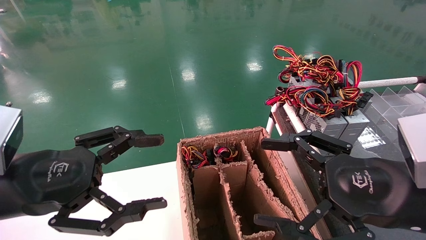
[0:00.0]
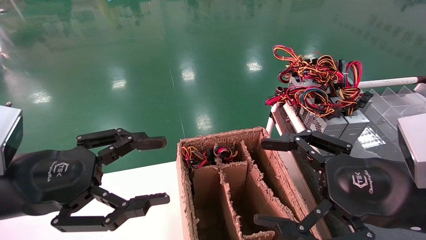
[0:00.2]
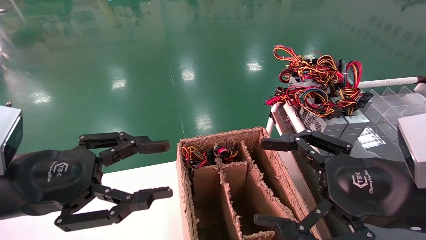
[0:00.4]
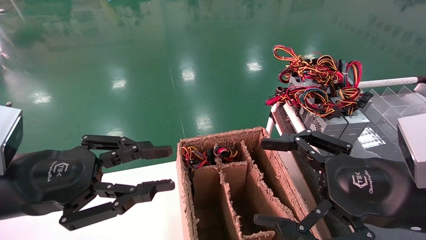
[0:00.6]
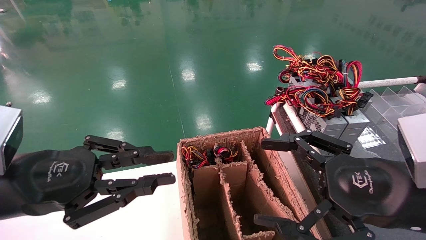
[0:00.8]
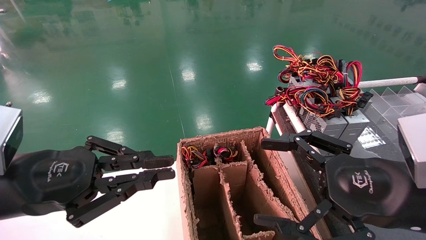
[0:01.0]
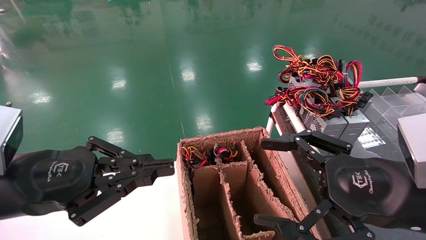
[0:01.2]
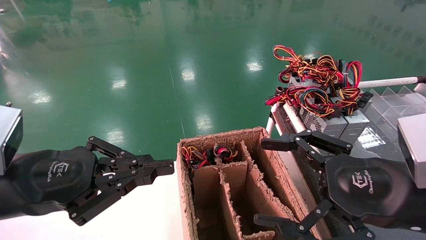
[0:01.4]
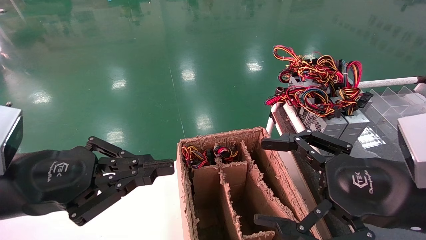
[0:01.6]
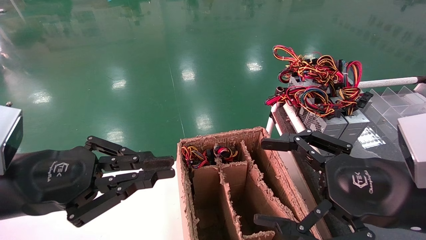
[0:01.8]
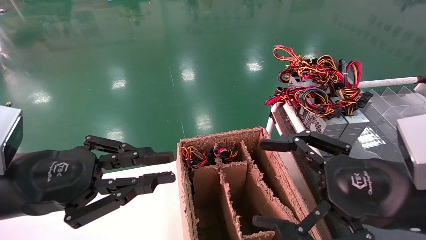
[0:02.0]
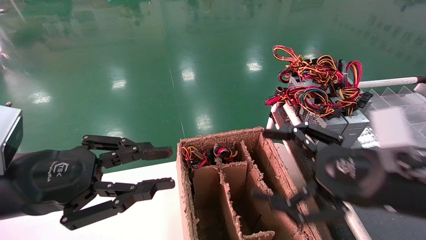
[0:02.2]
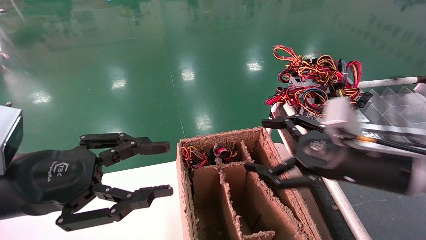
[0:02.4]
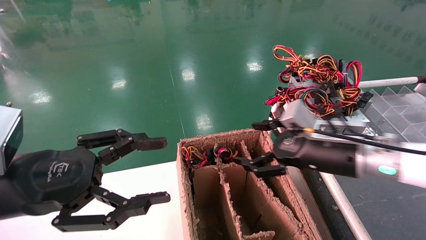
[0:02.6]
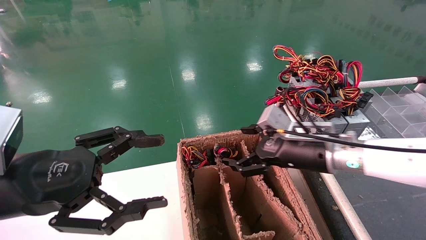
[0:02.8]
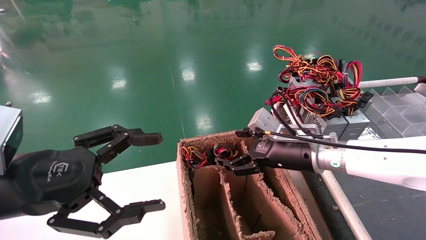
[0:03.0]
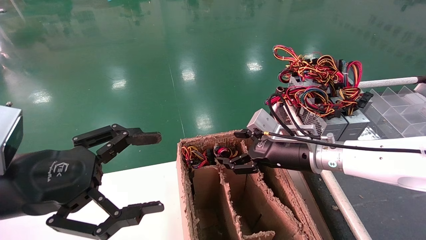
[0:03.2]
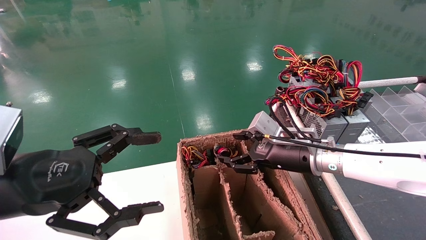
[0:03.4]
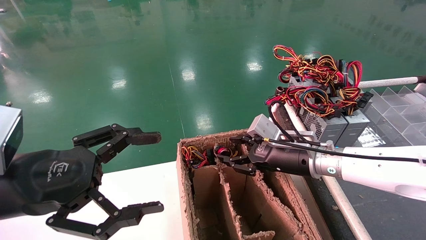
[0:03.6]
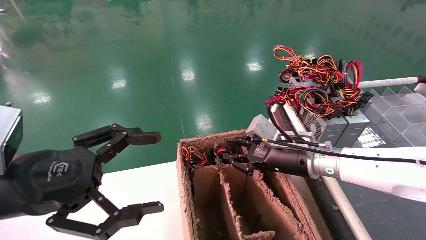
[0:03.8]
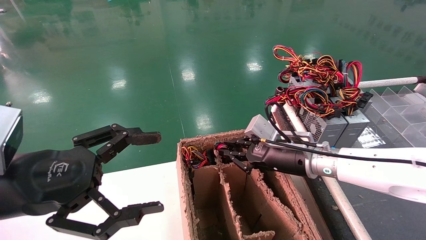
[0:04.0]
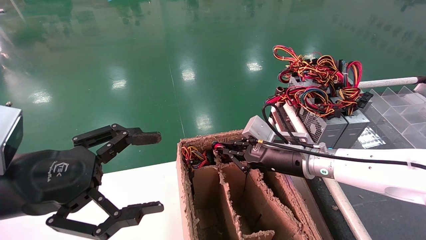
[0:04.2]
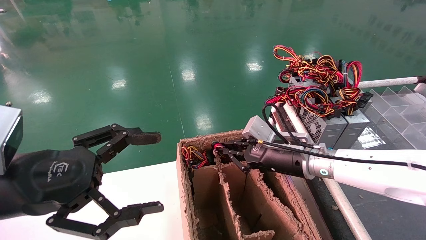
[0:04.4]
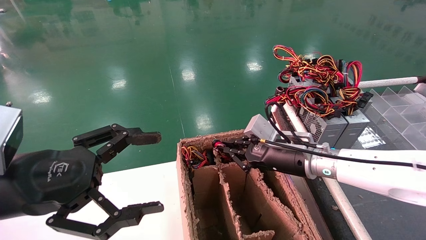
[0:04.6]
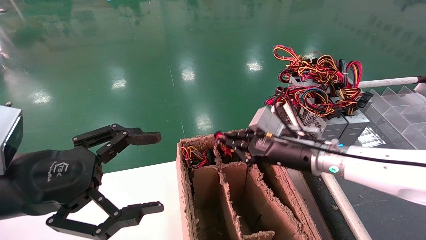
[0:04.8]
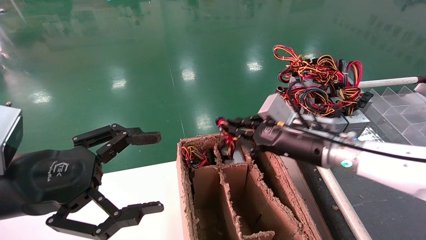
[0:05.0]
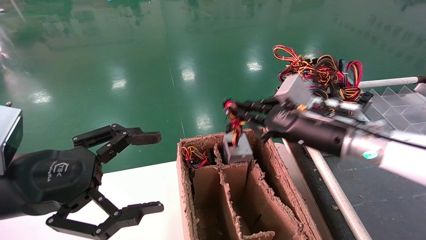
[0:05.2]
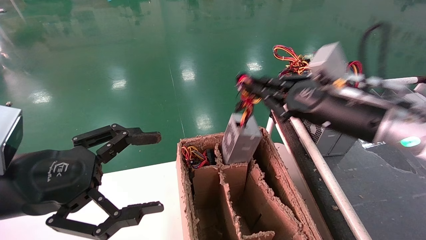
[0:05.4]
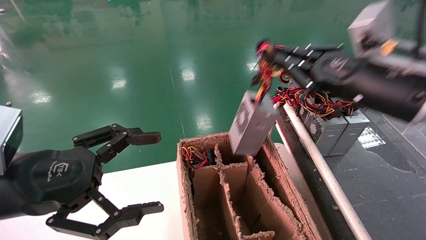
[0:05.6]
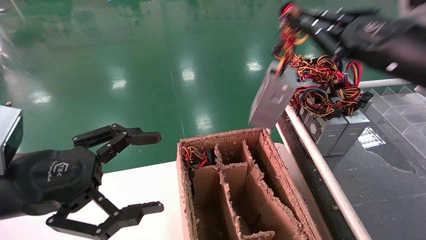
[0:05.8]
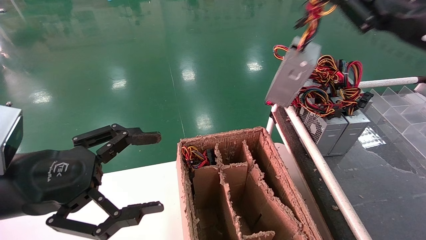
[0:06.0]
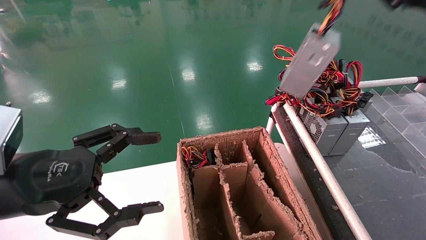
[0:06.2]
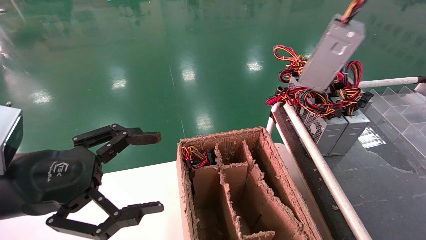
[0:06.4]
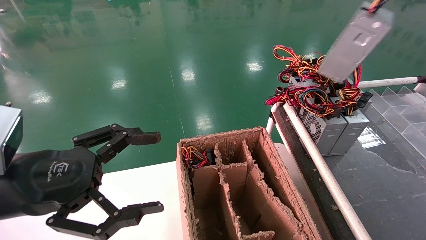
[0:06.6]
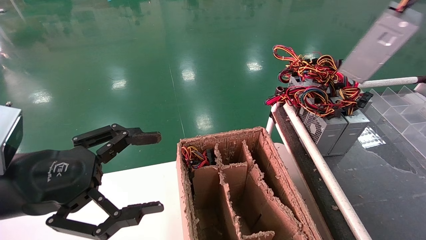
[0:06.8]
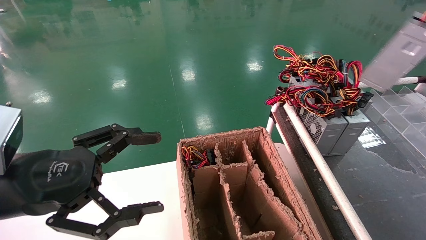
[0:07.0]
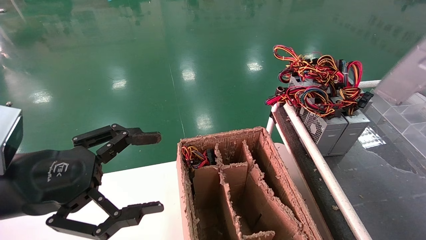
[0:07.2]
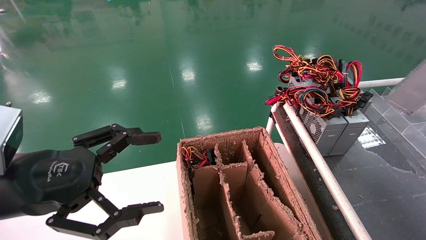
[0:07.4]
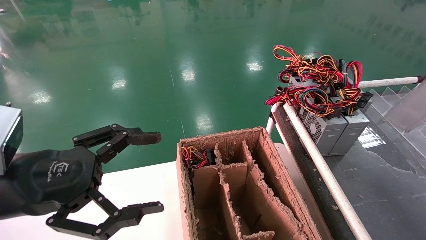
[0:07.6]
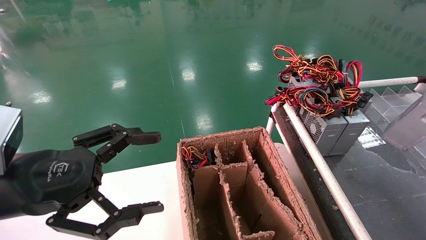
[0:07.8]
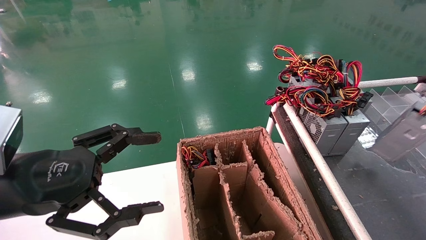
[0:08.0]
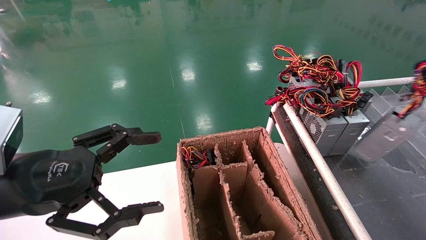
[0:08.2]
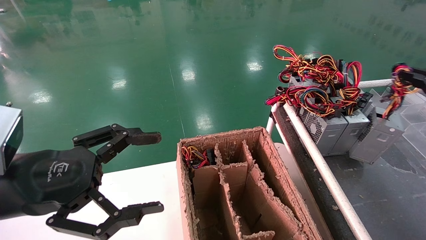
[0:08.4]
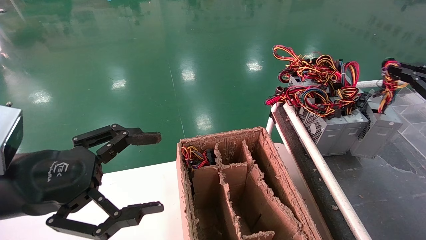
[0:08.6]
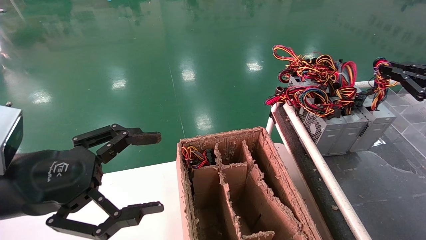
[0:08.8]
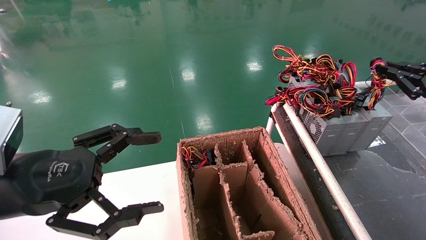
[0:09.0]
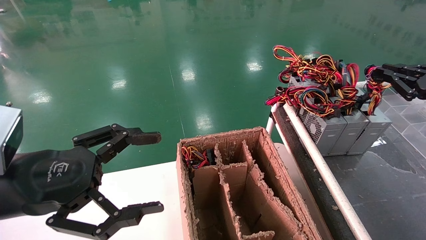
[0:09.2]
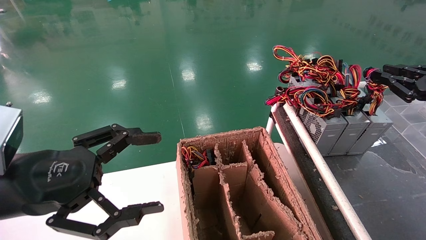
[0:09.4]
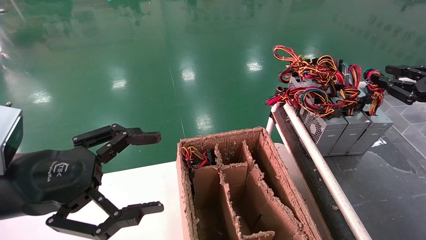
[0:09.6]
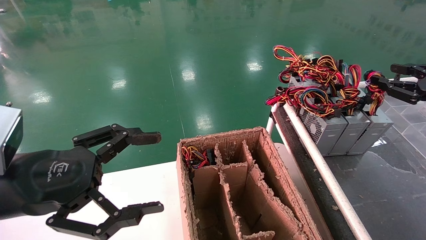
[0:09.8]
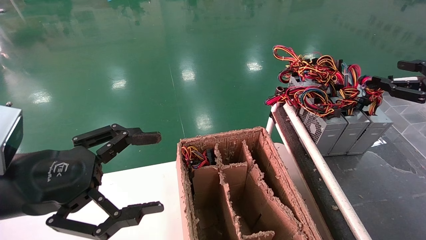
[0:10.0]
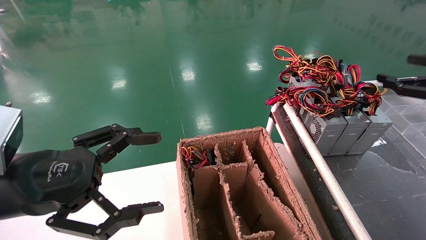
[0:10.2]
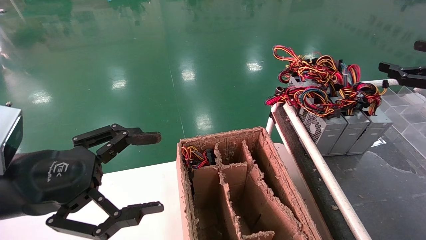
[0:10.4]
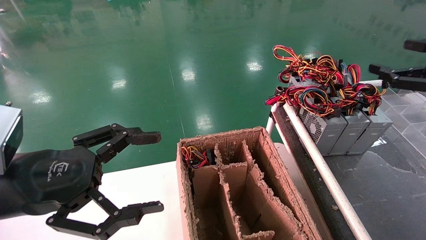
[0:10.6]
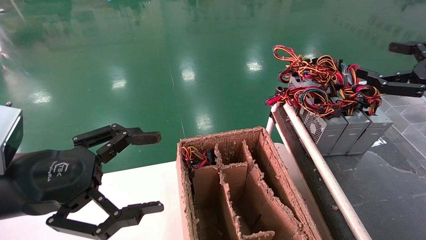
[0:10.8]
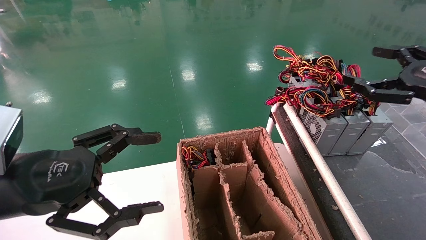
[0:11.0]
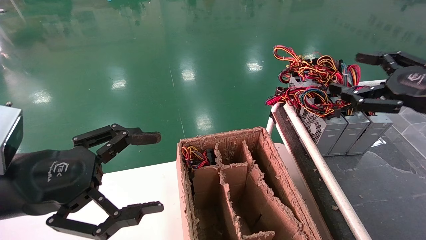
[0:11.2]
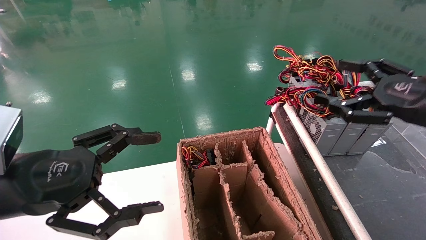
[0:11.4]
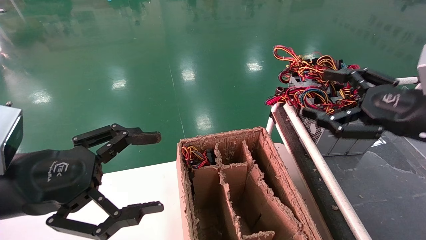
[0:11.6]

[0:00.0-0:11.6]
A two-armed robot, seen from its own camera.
Step, 0:00.6 to 0:04.2: Grab and lift the power supply from the large box.
Step, 0:04.4 to 0:09.6: Place the power supply on the operating table.
0:00.0 to 0:01.4: The left gripper closes up.
0:01.4 to 0:02.8: The left gripper opens up, while the right gripper travels forward by some 15 cm.
0:02.8 to 0:04.4: The right gripper moves roughly 5 cm, and closes up.
0:04.4 to 0:05.8: The right gripper goes roughly 25 cm upward, to the right and backward.
0:05.8 to 0:07.2: The right gripper travels to the right by about 20 cm.
0:07.2 to 0:08.8: The right gripper travels downward and forward by some 15 cm.
0:08.8 to 0:10.2: The right gripper opens its fingers.
0:10.2 to 0:11.6: The right gripper heads to the left, covering approximately 15 cm.

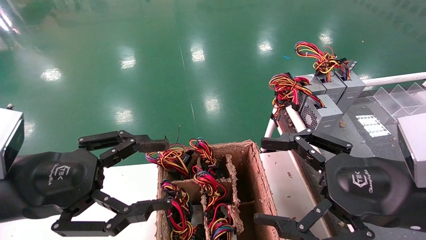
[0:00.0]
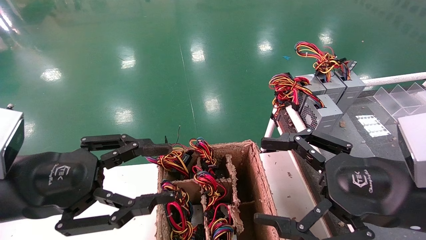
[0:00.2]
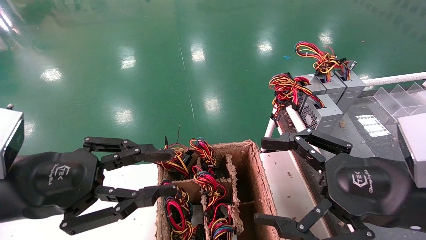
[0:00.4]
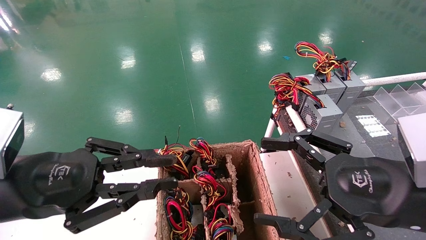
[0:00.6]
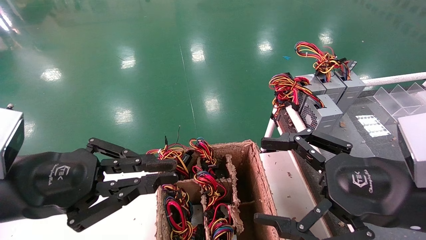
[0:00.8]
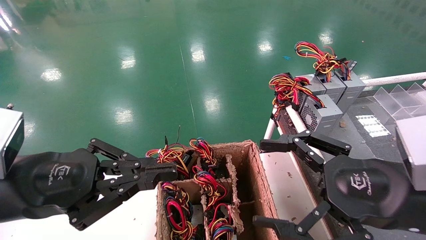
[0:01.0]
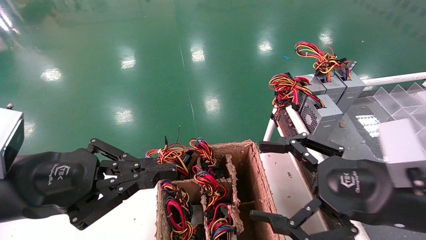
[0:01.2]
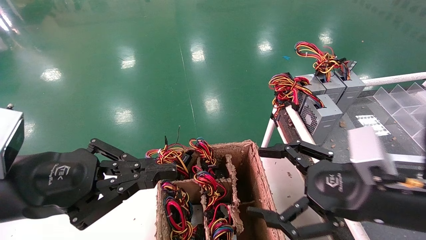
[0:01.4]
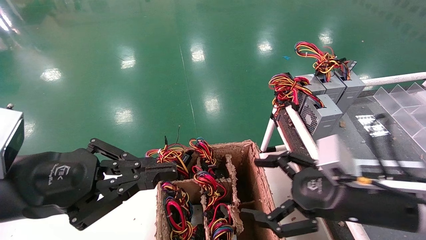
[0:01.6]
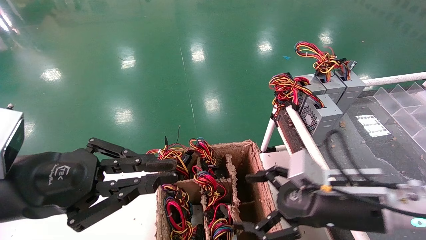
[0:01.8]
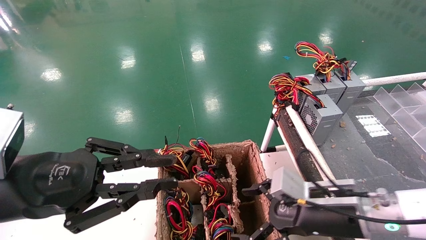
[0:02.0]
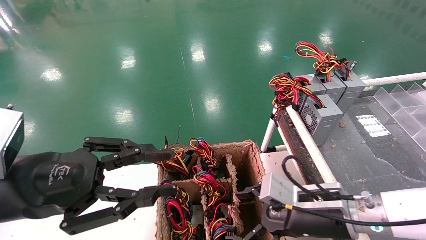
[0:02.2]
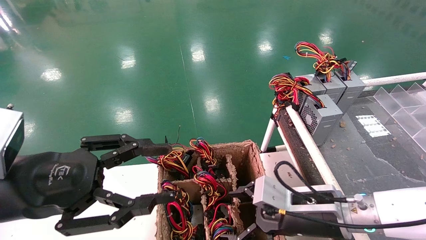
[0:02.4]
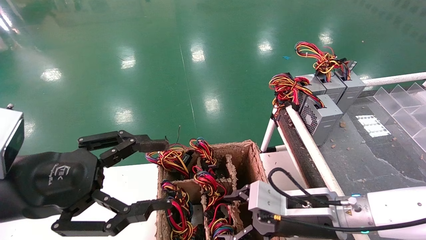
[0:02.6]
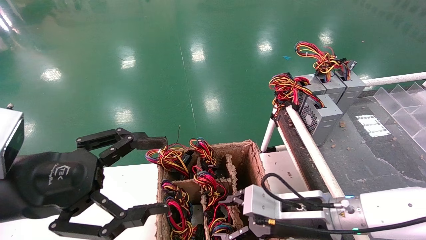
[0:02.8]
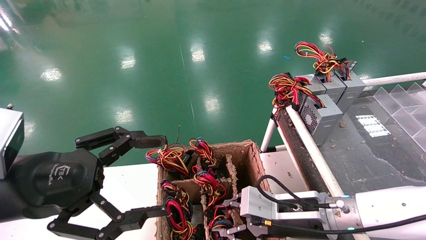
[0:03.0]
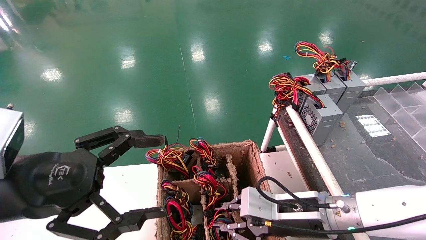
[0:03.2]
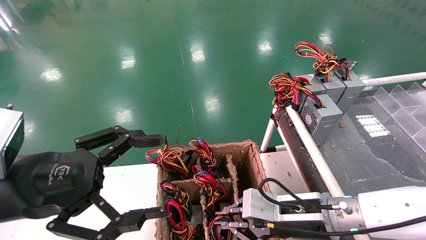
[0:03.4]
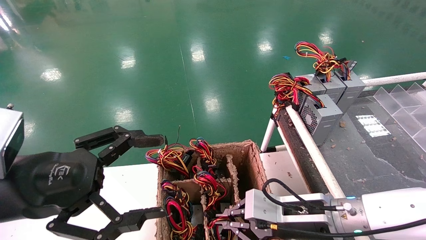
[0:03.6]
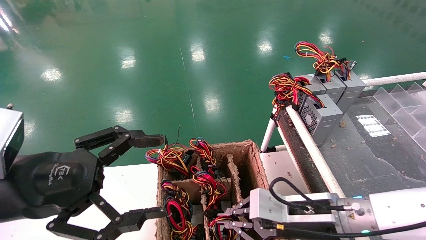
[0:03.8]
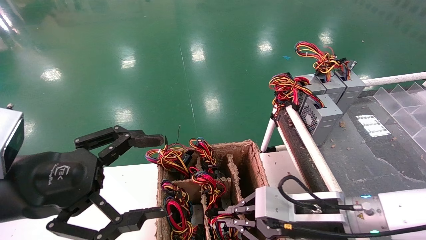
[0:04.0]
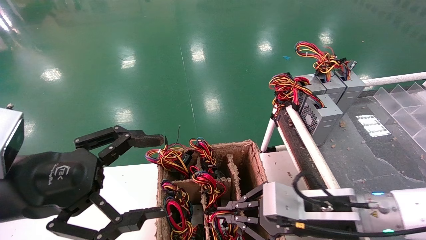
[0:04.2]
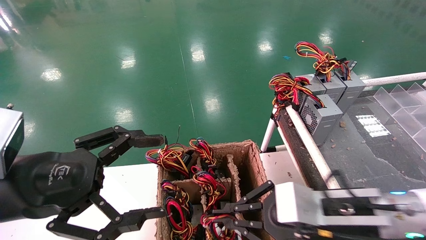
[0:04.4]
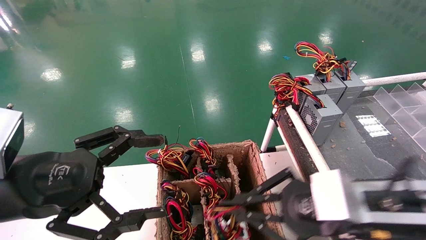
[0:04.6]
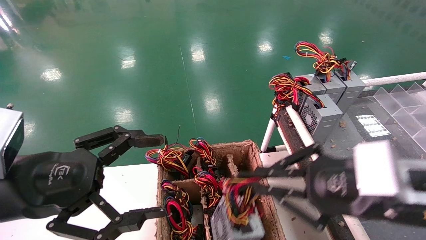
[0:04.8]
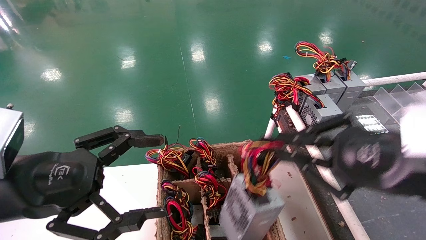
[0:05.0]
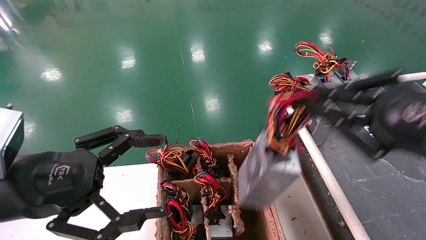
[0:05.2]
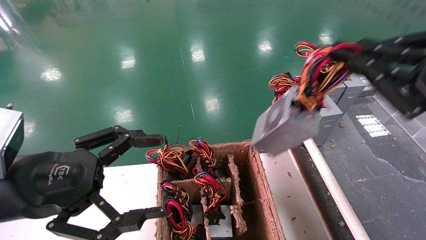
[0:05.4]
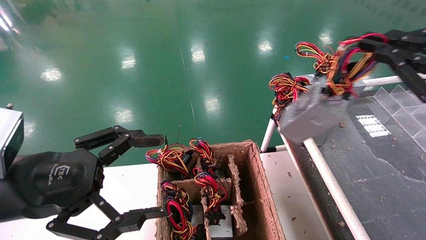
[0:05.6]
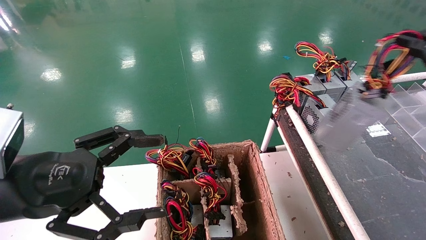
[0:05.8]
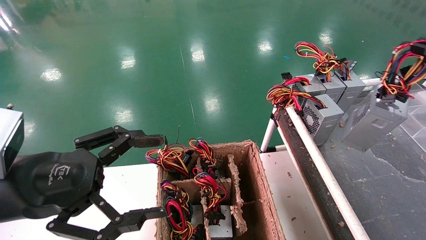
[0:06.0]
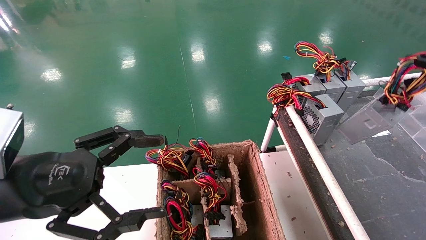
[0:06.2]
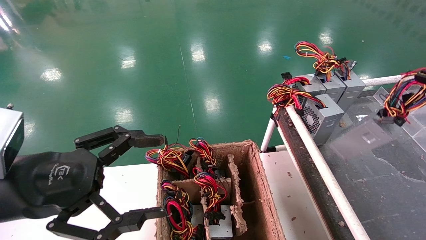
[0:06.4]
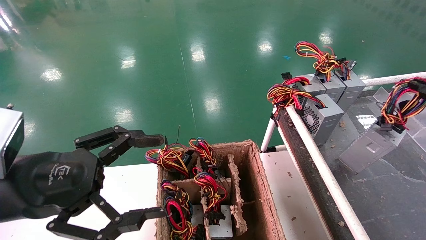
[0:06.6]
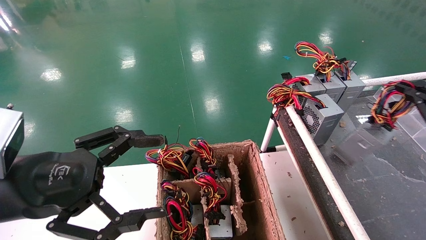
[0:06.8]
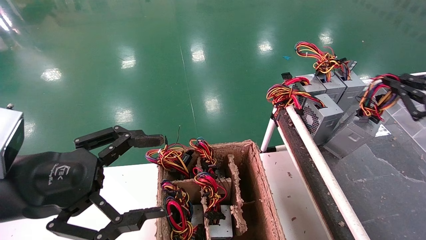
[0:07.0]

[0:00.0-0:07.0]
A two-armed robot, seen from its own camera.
Step, 0:01.2 to 0:04.6: Grab and lift the power supply from the large box.
0:00.0 to 0:01.4: The left gripper closes up.
0:01.4 to 0:02.8: The right gripper goes some 15 cm downward, to the left and forward. The left gripper opens up.
0:02.8 to 0:04.2: The right gripper closes.
0:04.2 to 0:05.6: The right gripper is displaced to the right and upward by about 25 cm.
0:05.6 to 0:07.0: The right gripper moves forward and to the right, approximately 10 cm.
